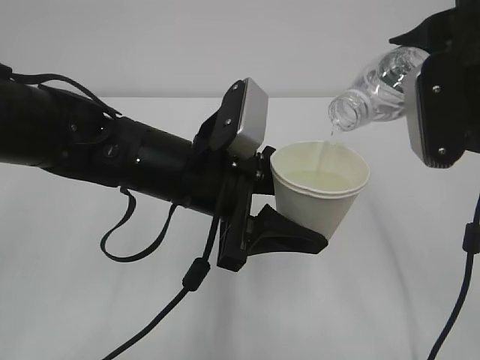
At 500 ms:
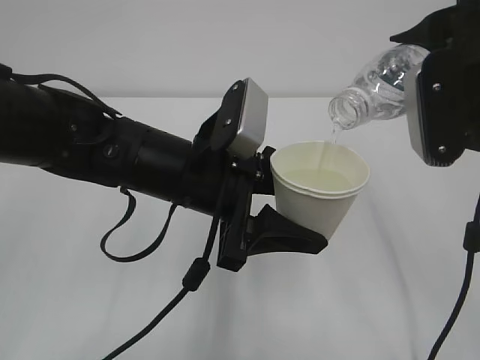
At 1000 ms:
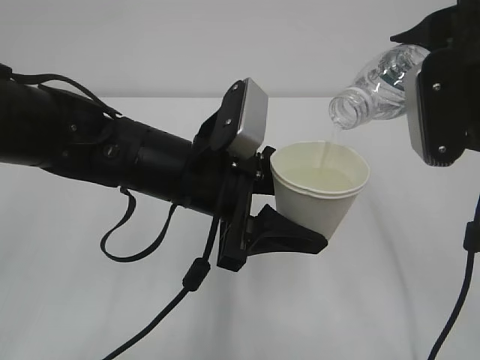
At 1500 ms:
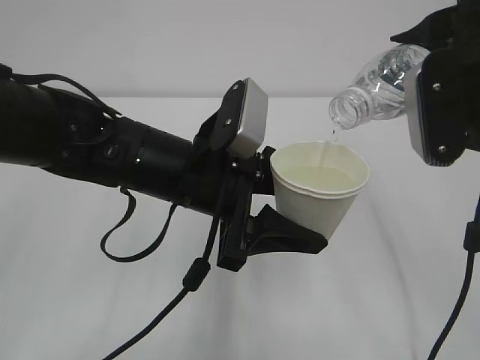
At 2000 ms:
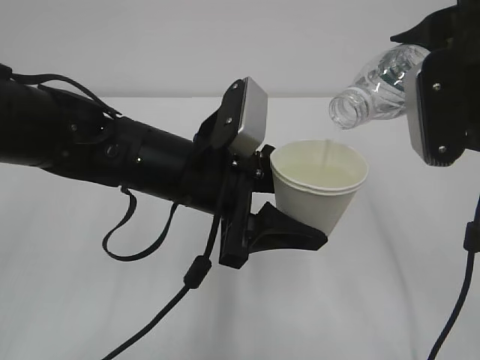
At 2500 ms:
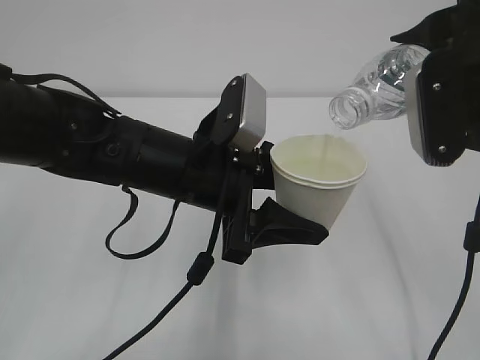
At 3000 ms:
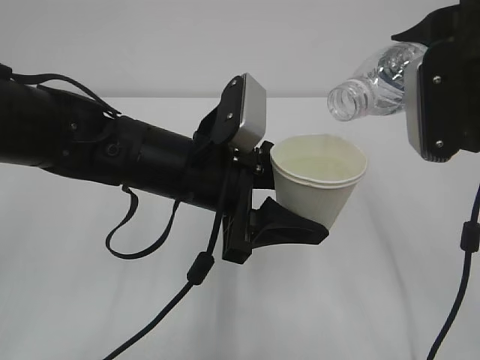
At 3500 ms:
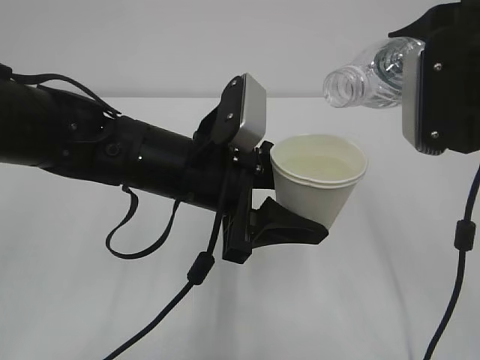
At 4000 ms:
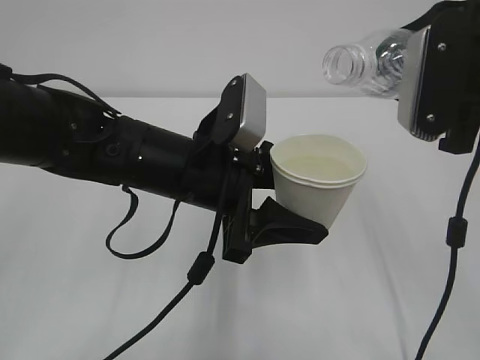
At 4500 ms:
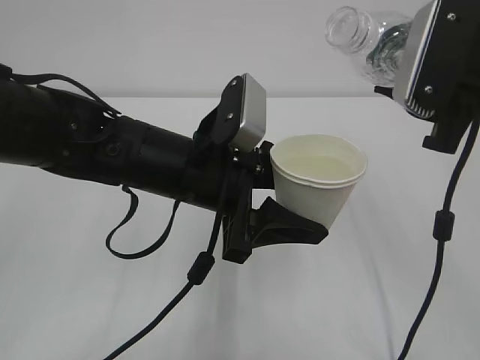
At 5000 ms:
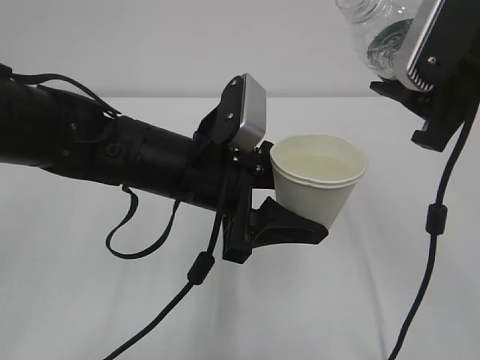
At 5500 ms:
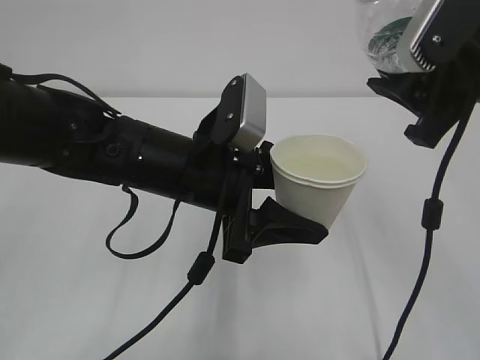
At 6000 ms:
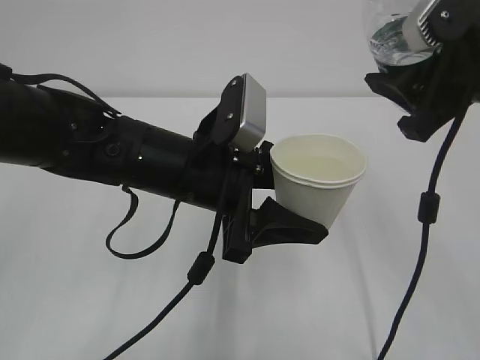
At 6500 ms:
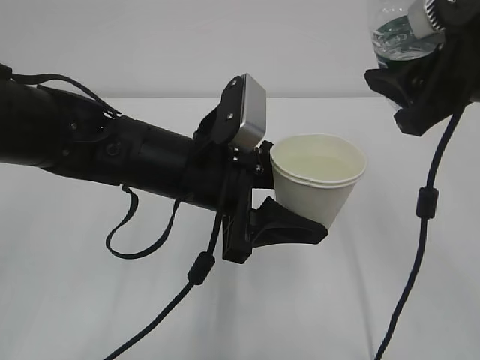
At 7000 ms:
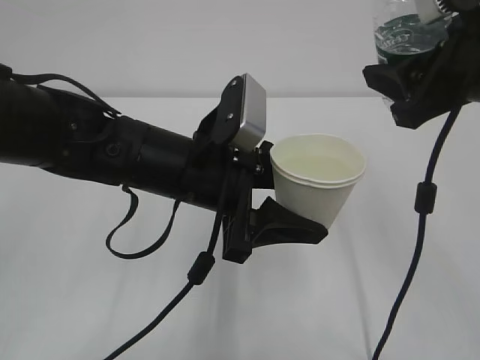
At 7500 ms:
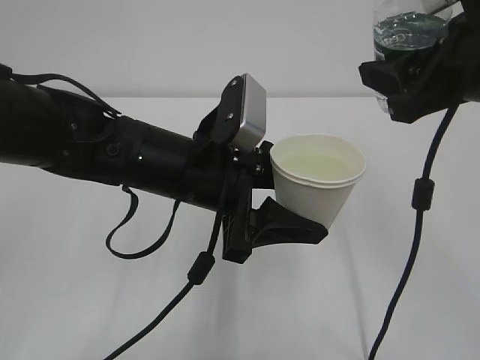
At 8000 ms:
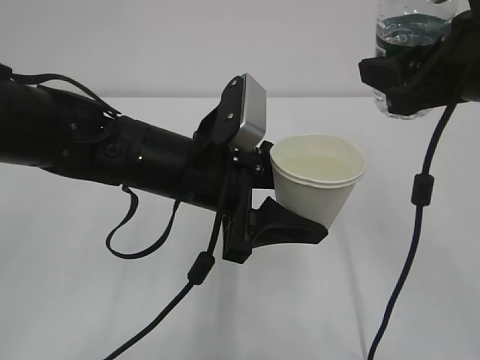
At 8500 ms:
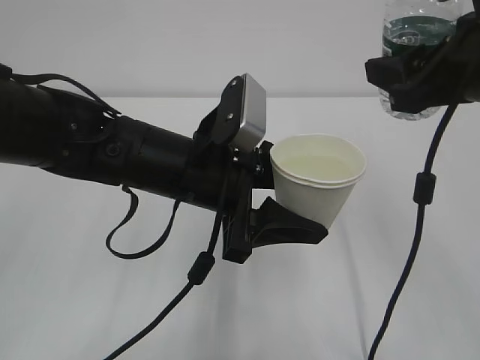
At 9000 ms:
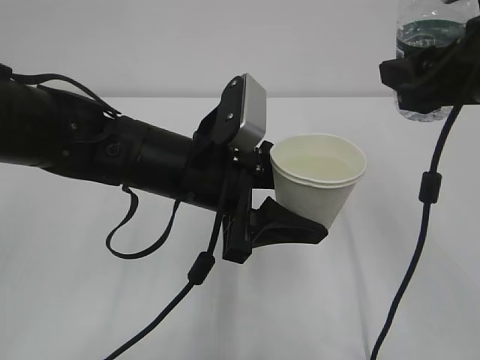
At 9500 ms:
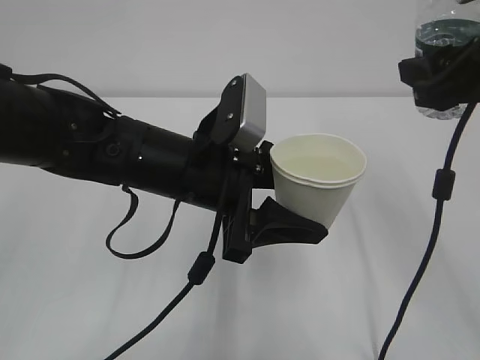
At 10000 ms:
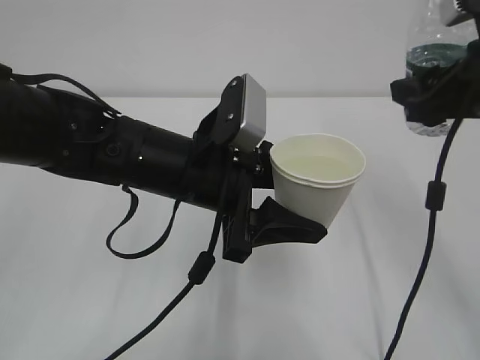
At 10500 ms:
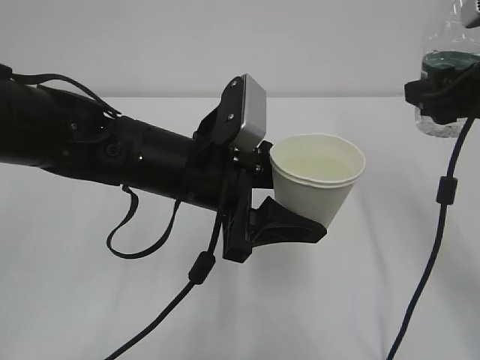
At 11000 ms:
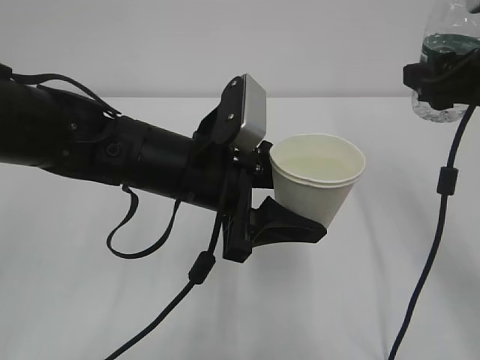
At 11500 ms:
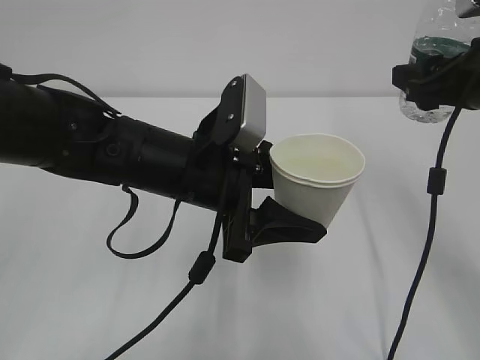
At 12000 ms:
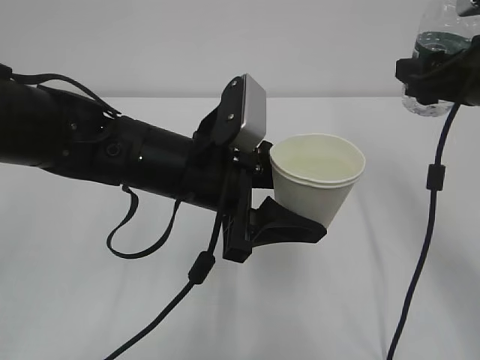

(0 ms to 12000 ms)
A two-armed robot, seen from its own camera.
0 ms - 2000 ms: Both grippers stay about where they are.
2000 ms - 4000 ms: There are only small adjustments of the grippers.
8000 ms - 10000 ms: The grippers stay close to where they were, moving slightly.
10000 ms - 12000 ms: The grippers make only small movements.

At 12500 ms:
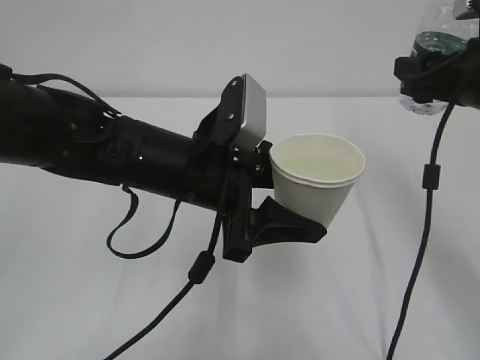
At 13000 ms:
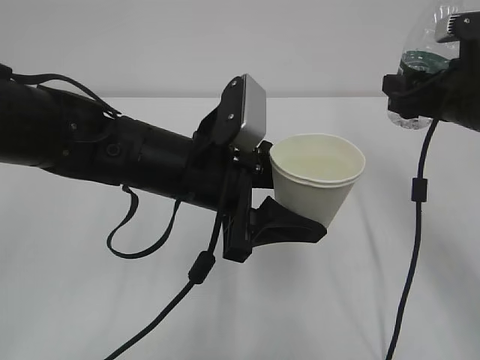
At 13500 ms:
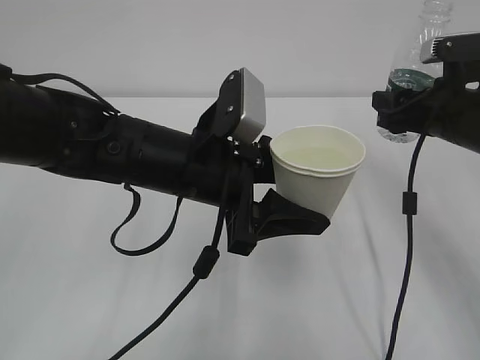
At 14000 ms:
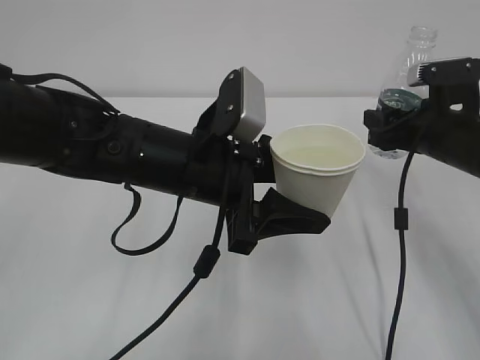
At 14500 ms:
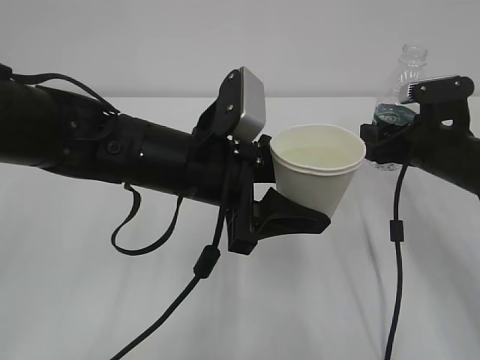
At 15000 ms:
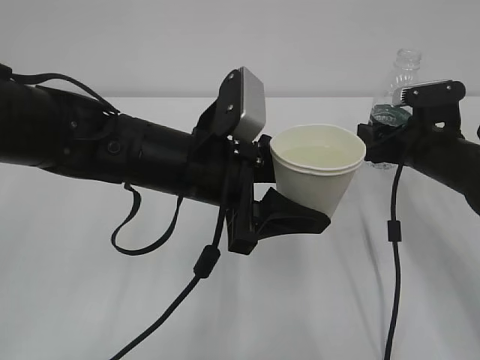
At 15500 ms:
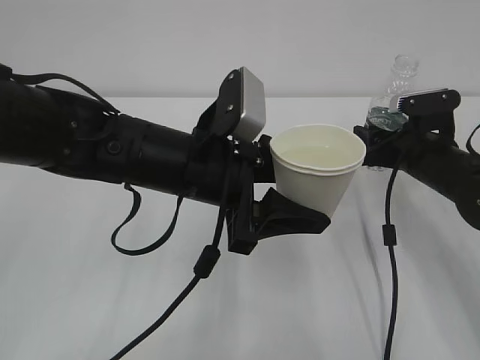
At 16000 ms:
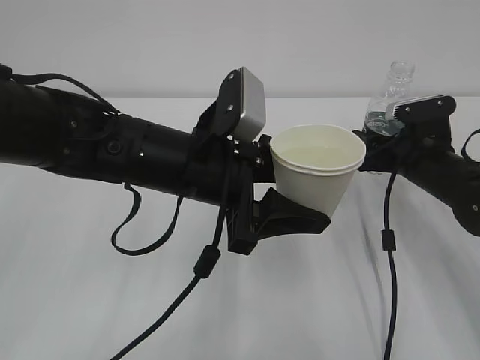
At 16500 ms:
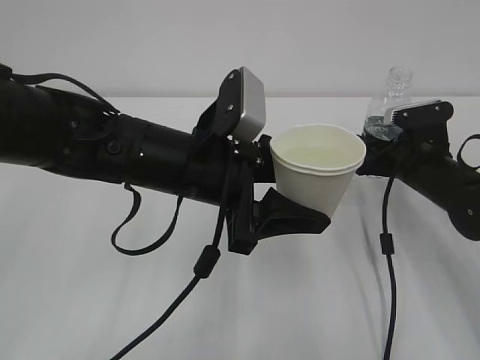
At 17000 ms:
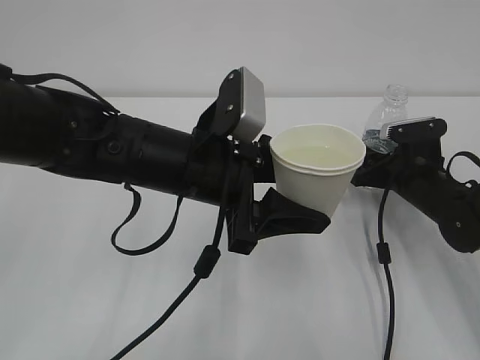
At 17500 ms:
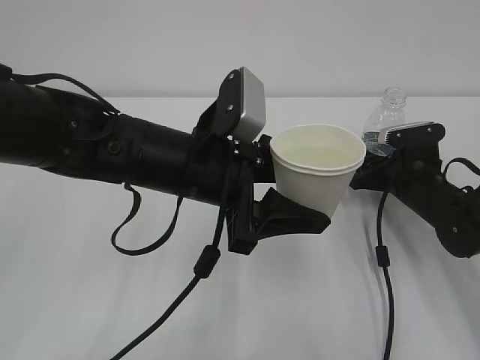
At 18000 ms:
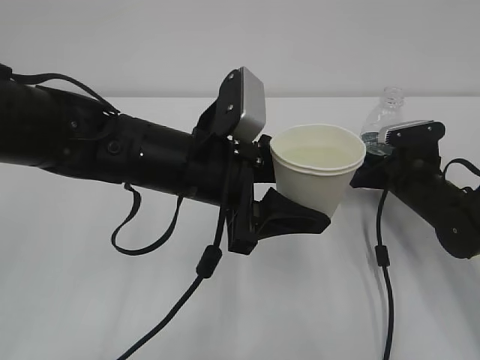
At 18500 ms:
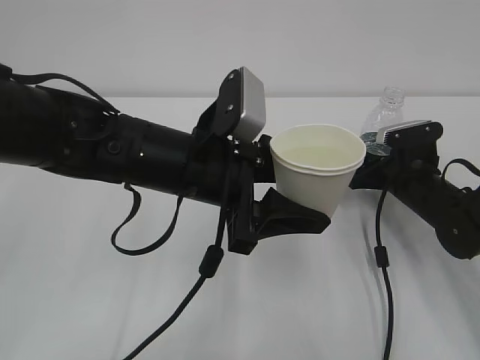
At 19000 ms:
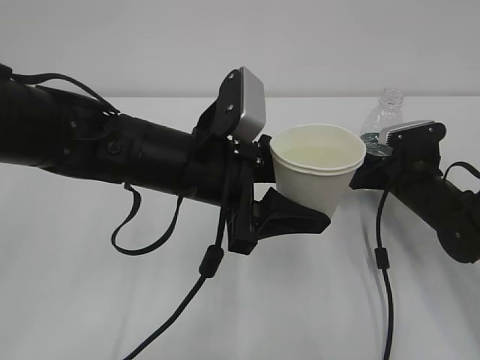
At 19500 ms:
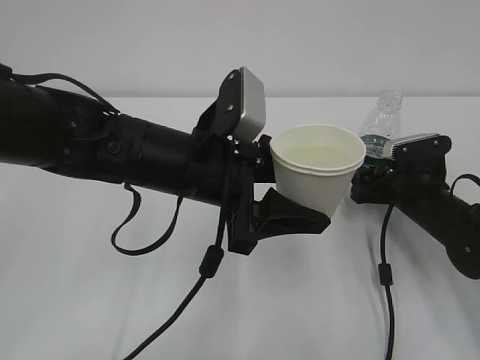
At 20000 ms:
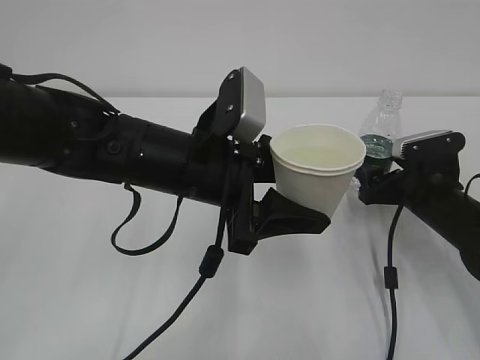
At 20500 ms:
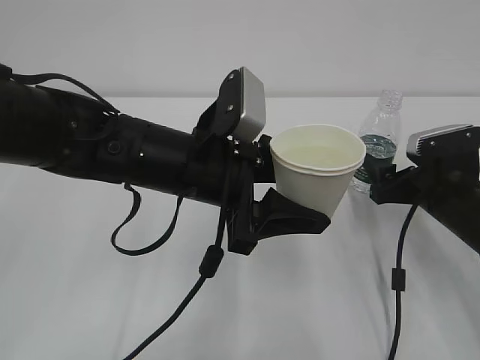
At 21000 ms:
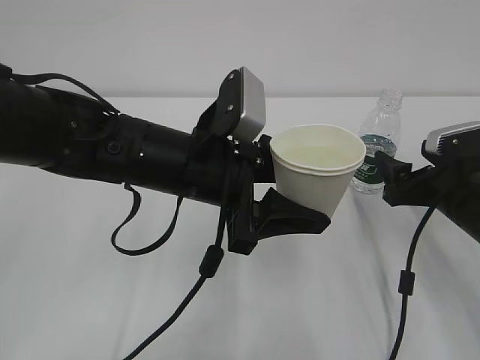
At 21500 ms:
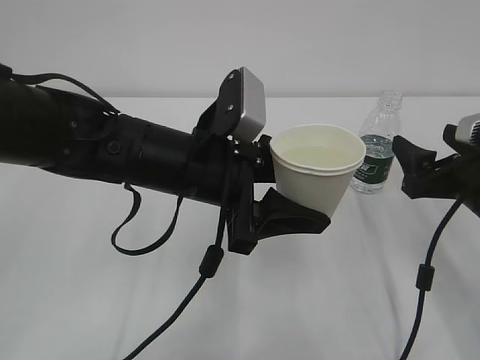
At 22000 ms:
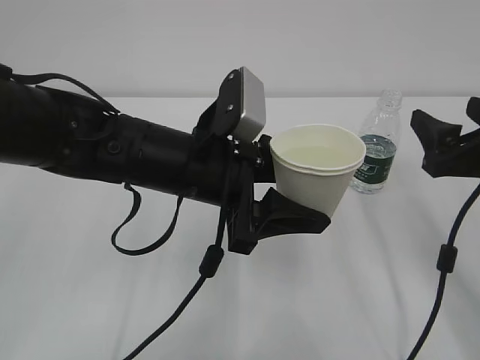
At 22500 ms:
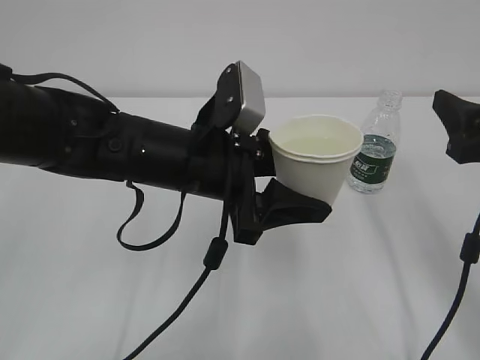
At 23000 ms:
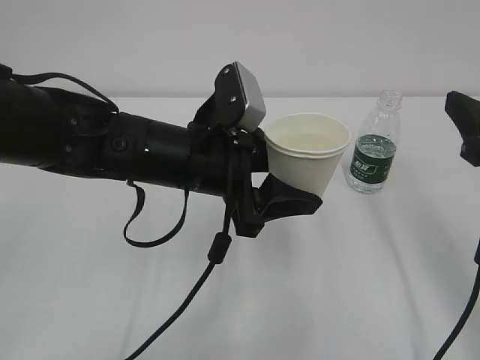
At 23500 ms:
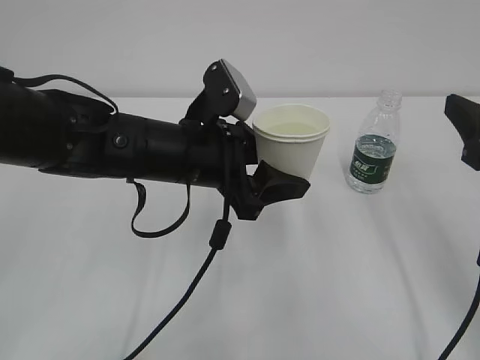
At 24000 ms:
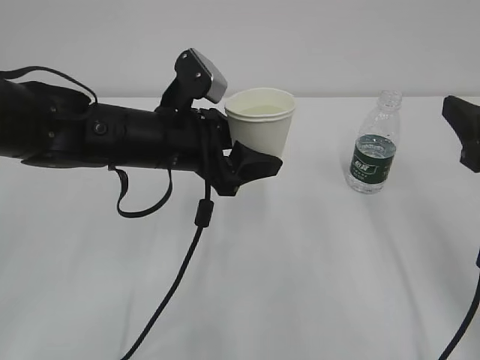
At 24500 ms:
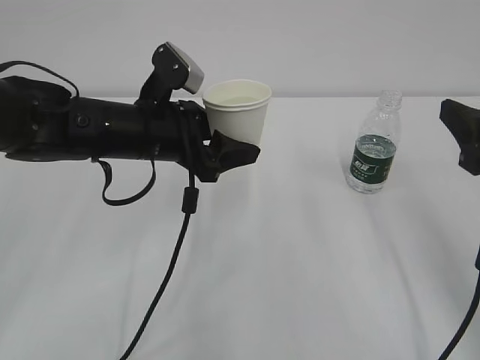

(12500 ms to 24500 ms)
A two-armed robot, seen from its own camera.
12500 ms - 14500 ms: The right gripper goes approximately 10 cm downward.
14500 ms - 16500 ms: The right gripper shifts by approximately 5 cm.
16500 ms - 18500 ms: The right gripper opens up.
18500 ms - 20500 ms: The right gripper goes some 5 cm backward.
20500 ms - 22500 ms: The right gripper moves upward and backward, about 15 cm.
22500 ms - 24500 ms: The left gripper shifts roughly 10 cm forward and to the left.

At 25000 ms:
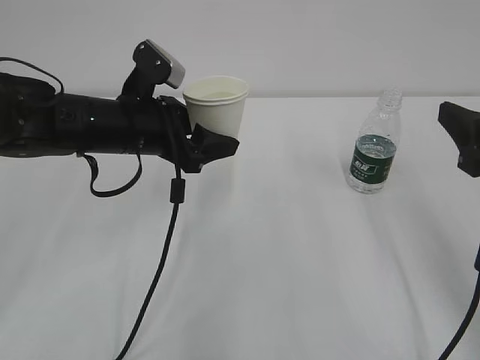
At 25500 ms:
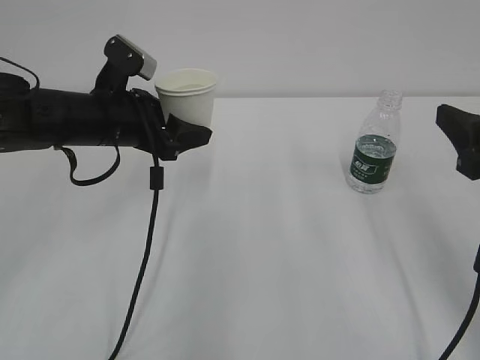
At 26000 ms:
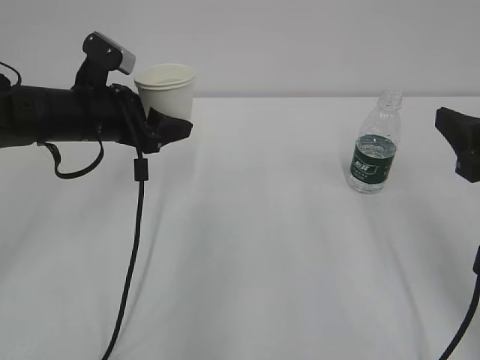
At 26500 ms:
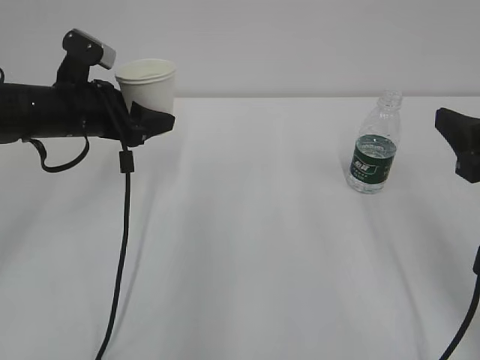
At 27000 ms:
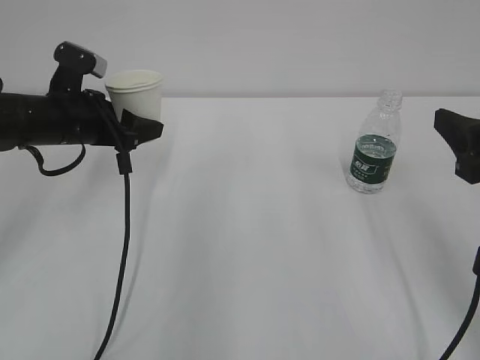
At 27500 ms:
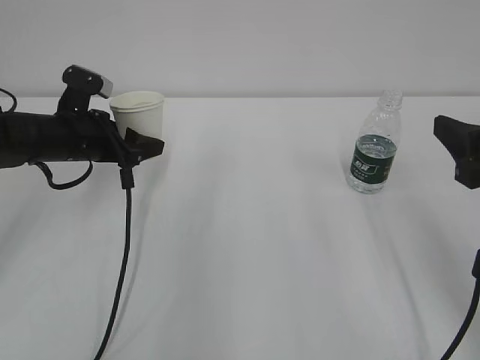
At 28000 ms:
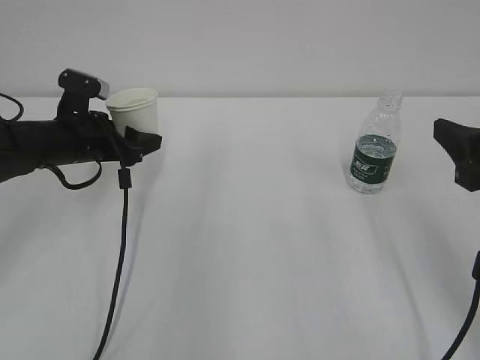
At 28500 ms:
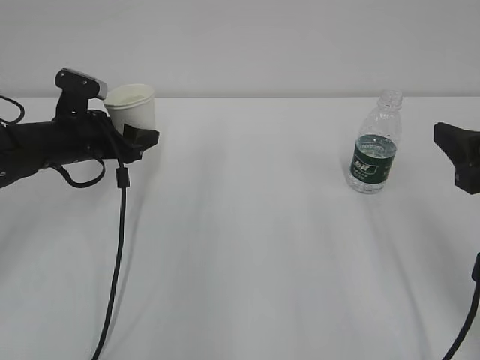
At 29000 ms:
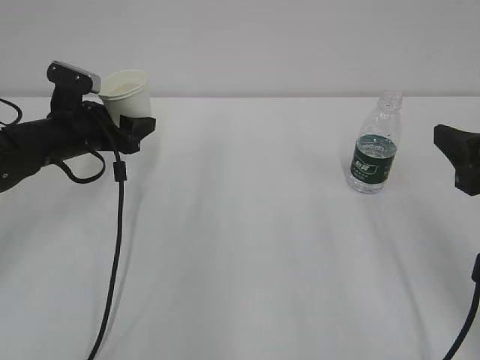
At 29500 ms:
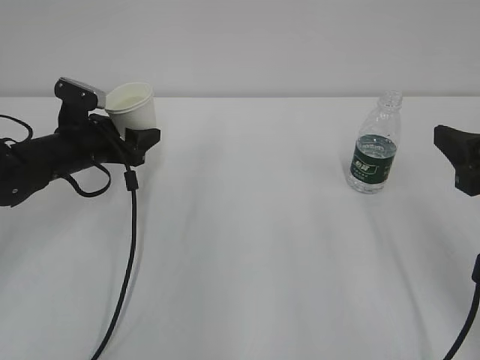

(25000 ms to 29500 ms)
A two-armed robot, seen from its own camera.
25000 ms - 27000 ms: The left gripper heads to the left, covering roughly 10 cm.
27000 ms - 29500 ms: The left gripper moves downward, some 5 cm.
